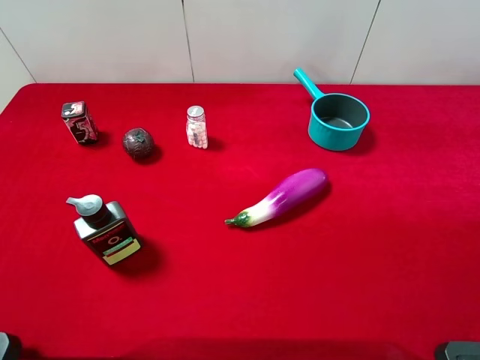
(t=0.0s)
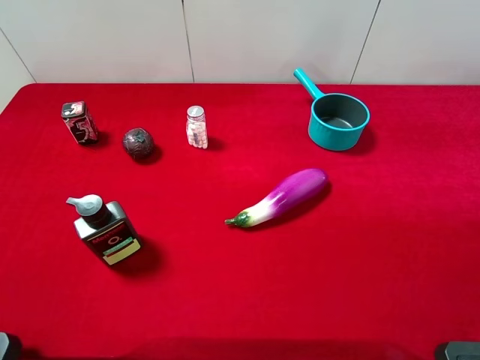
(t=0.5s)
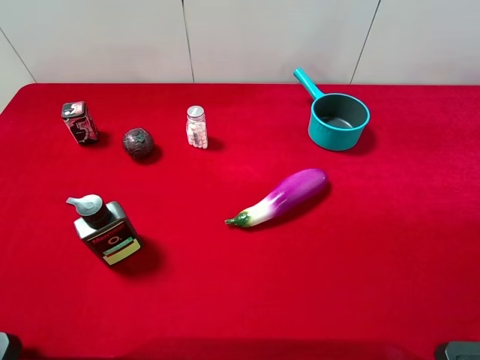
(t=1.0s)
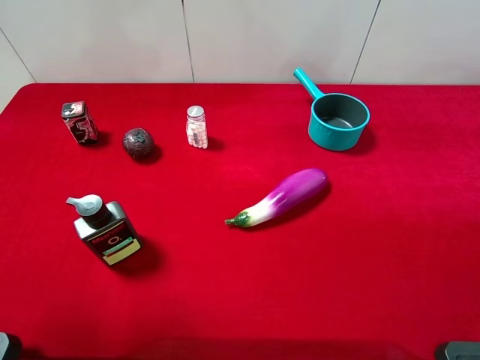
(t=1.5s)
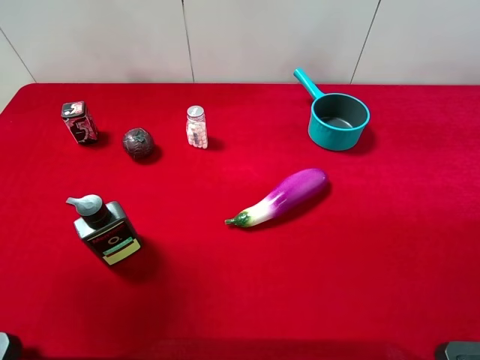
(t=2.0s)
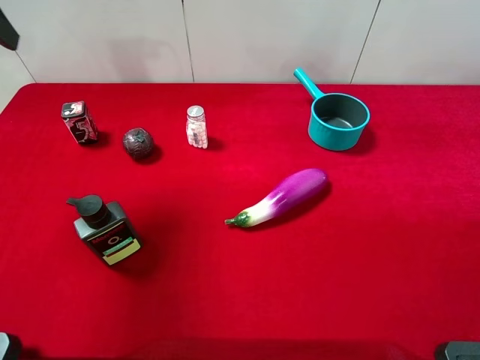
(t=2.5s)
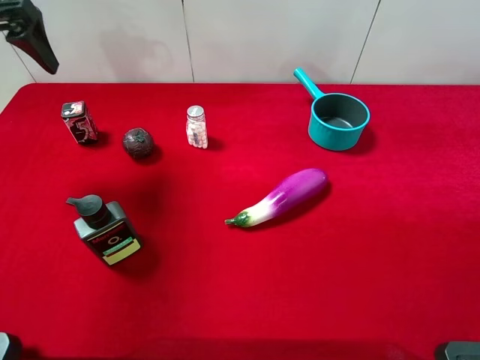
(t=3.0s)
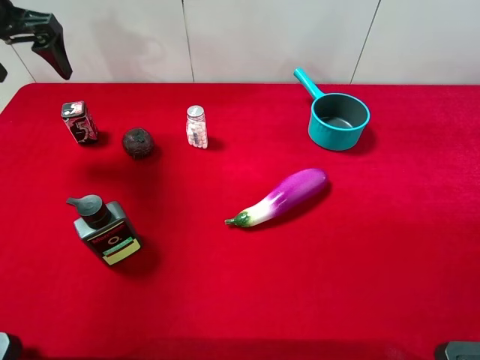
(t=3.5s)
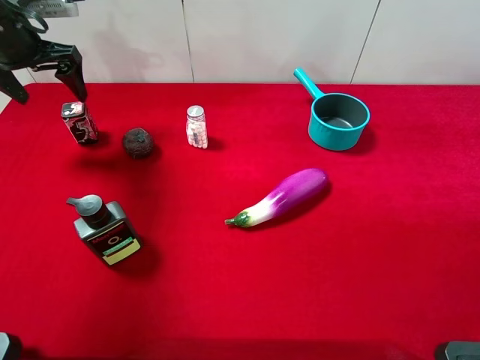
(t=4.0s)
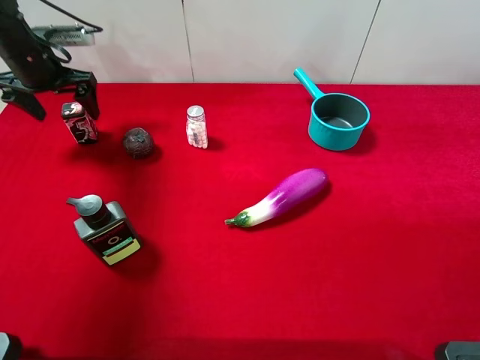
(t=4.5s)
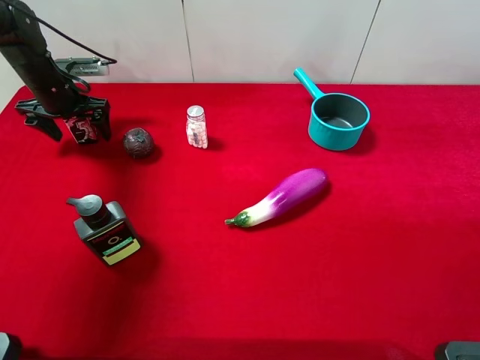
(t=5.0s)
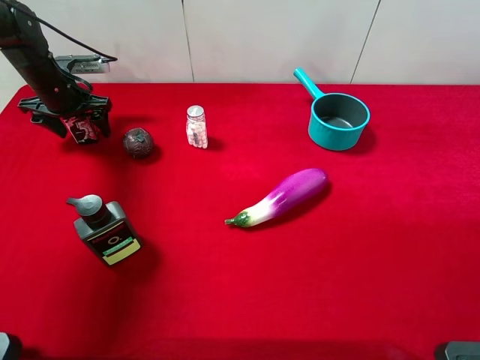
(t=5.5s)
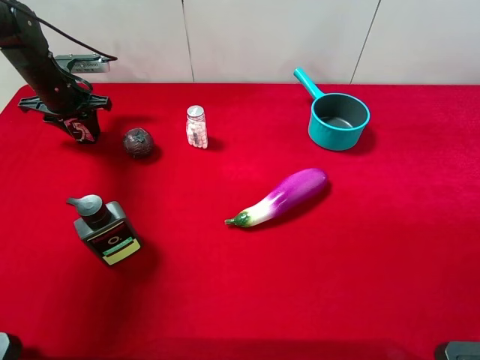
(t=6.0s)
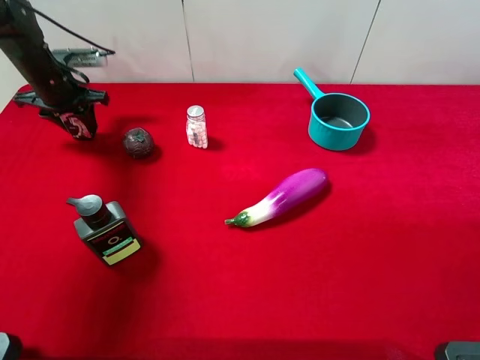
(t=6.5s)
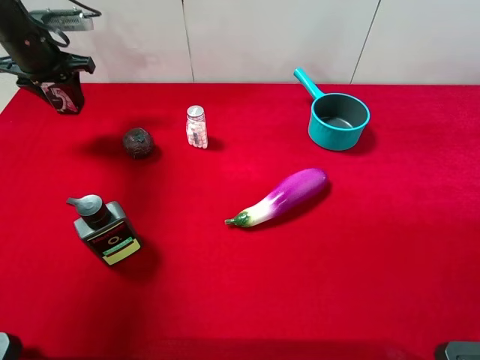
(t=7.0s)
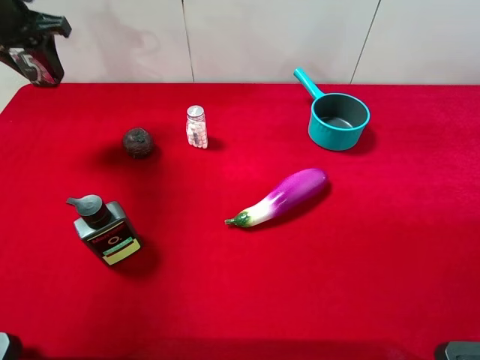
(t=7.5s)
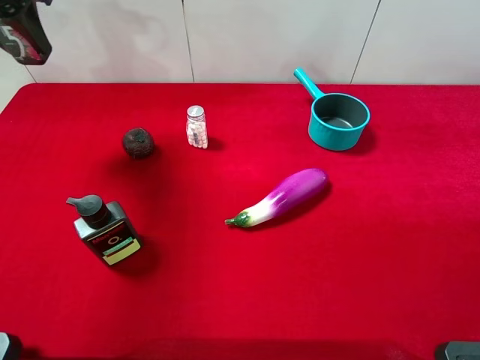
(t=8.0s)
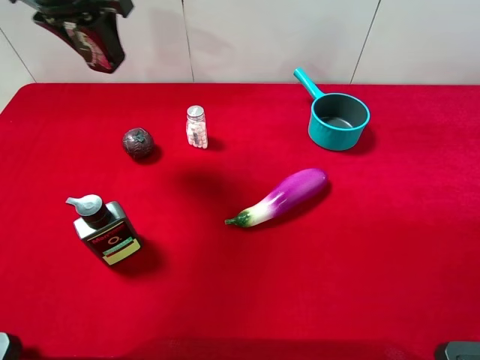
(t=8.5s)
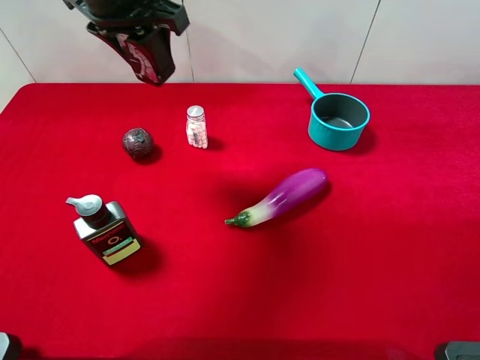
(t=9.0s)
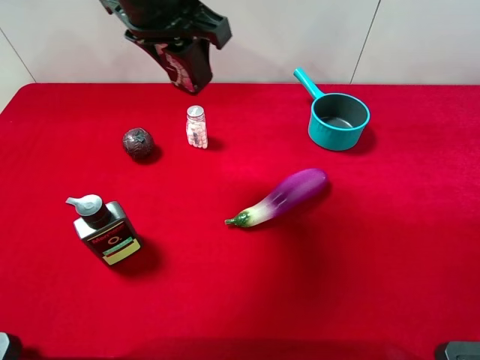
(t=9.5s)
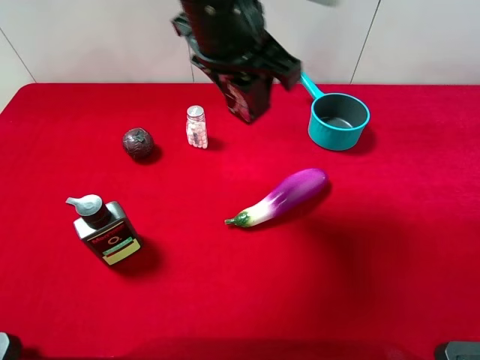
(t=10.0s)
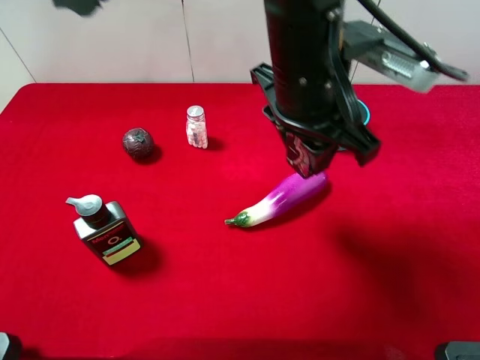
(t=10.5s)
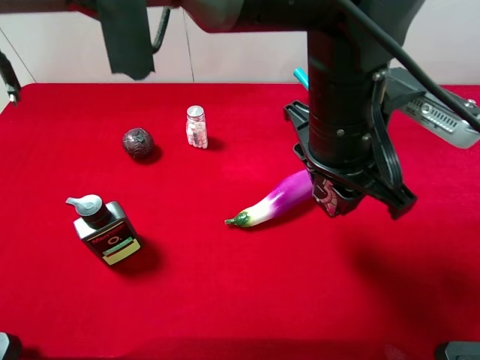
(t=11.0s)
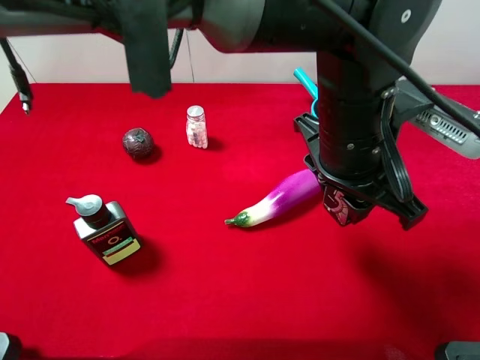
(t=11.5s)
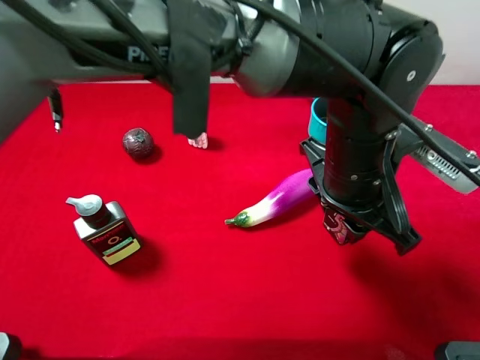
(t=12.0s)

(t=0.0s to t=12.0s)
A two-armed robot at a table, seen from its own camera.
Task of the whole recording: the gripper move the object.
Step, t=0.0s - t=5.5s: Grasp the square chewing gum with the left gripper.
t=0.0s - t=2.0s: The left gripper travels forward and upward by about 20 cm.
t=2.0s - t=4.0s: The left gripper goes approximately 25 cm forward and downward.
t=4.0s - t=6.0s: The left gripper heads downward, covering about 10 cm, and closes up.
t=6.0s - t=8.0s: The left gripper shifts some 20 cm upward.
t=8.0s - t=10.0s: The left gripper goes roughly 30 cm to the right.
t=10.0s - t=12.0s: The left gripper travels to the right, downward and backward by roughly 20 cm.

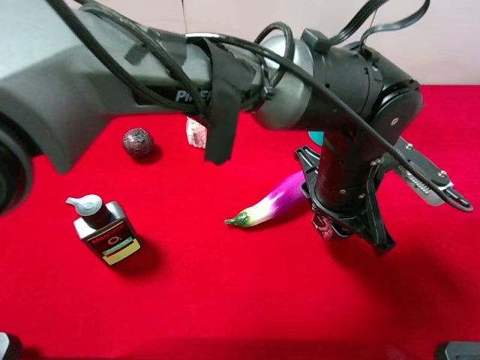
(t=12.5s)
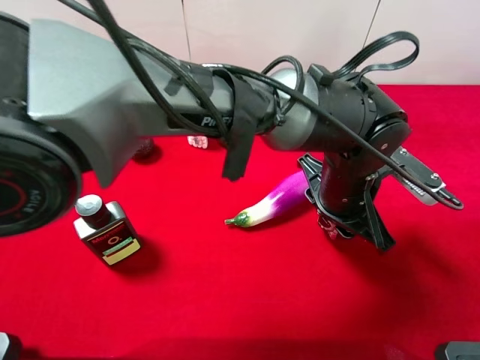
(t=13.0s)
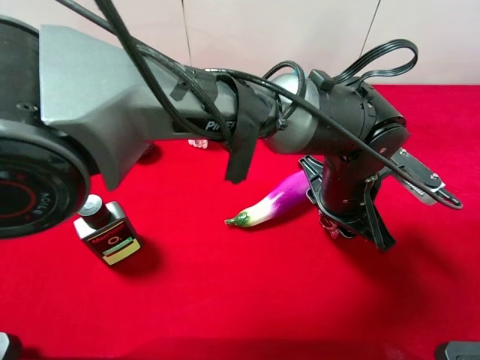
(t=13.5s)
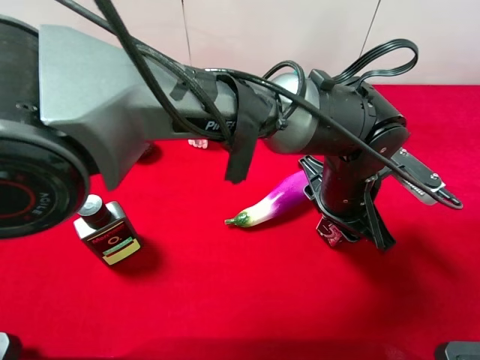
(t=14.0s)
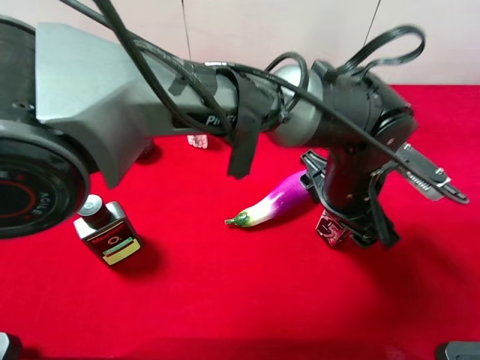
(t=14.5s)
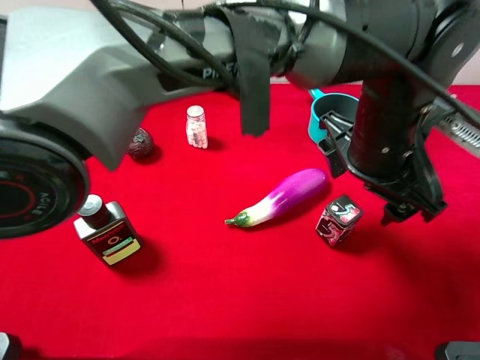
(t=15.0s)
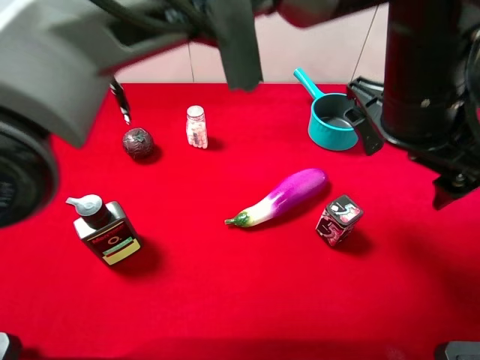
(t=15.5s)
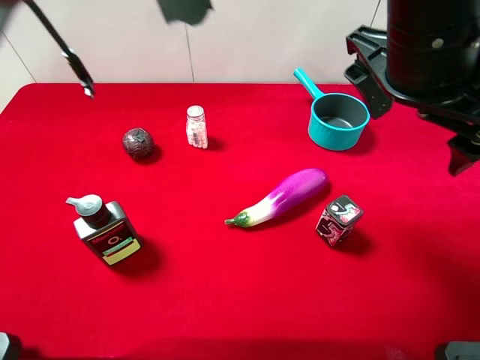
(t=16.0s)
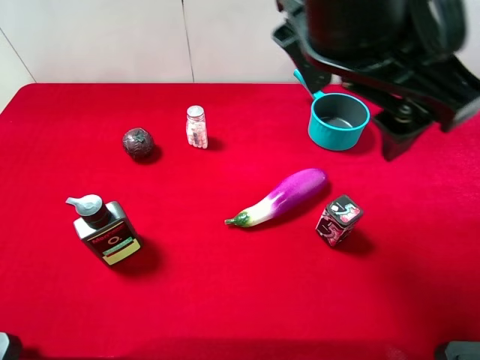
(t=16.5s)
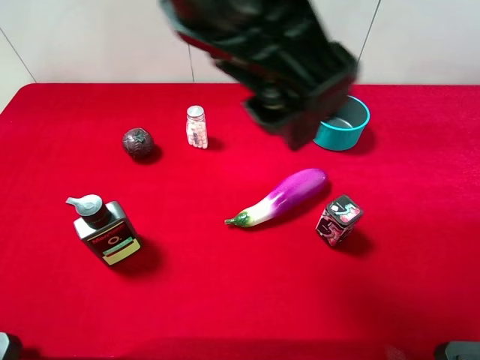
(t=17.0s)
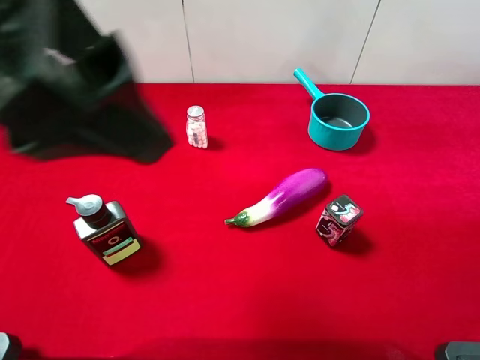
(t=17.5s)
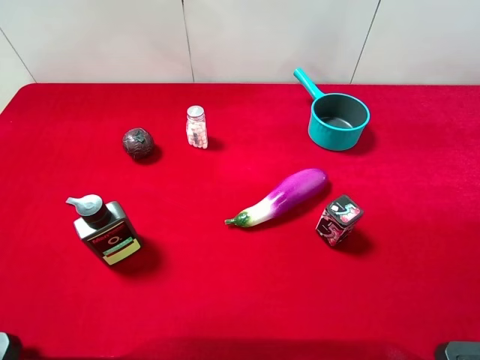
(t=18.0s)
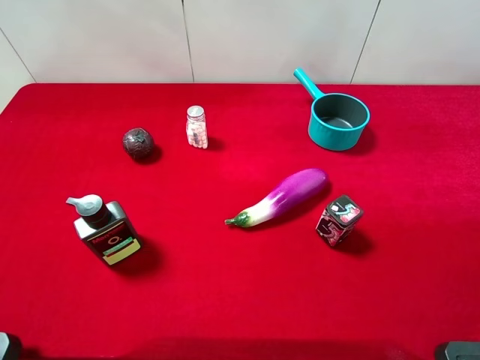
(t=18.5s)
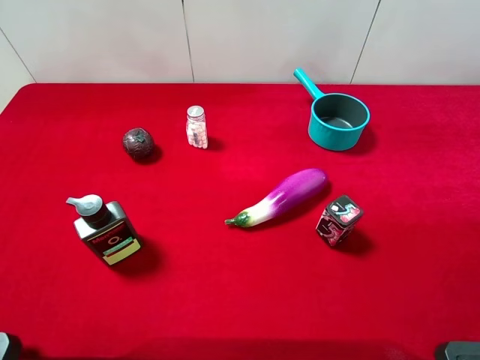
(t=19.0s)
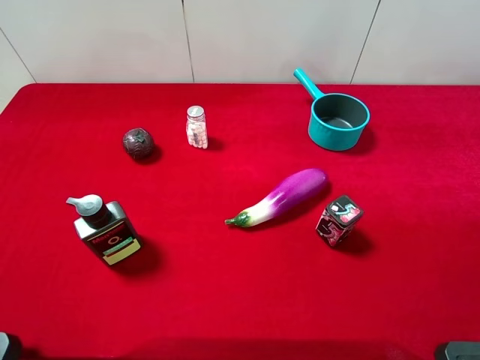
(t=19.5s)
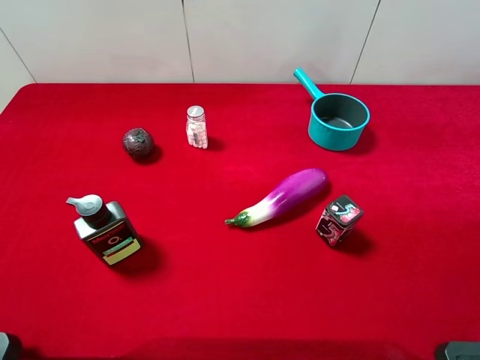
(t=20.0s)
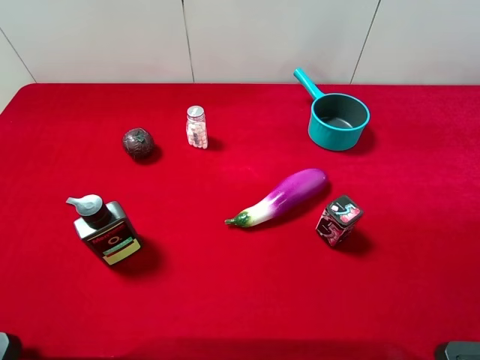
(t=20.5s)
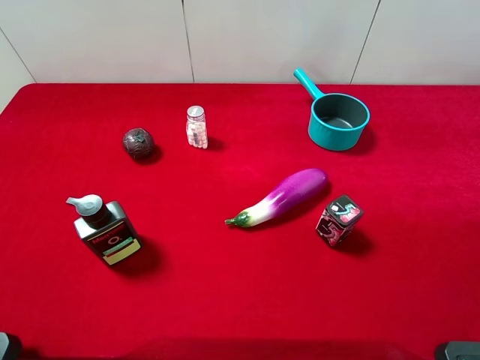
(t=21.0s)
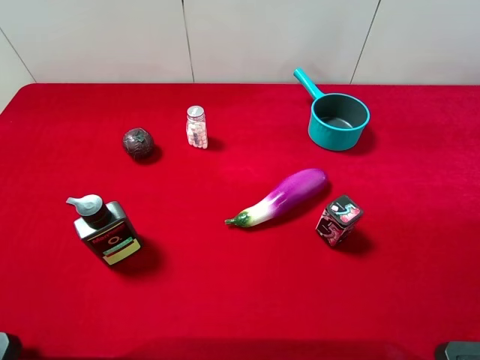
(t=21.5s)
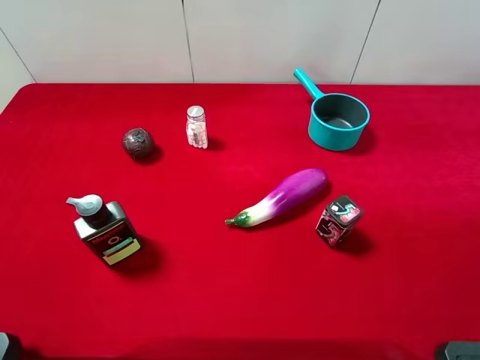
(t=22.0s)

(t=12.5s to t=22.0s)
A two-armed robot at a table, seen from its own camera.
Task of the whole recording: the gripper move the object.
Step, t=12.5s - t=15.0s: Place the square chewing gum on the table with the left gripper.
t=12.5s - t=14.5s: The left gripper opens its fingers.
t=14.5s - t=16.5s: The left gripper goes some 20 cm upward.
t=16.5s - t=18.0s: The left gripper is displaced to the left and backward by roughly 30 cm.
t=18.0s - t=20.0s: The left gripper travels downward, to the left and backward by roughly 15 cm.

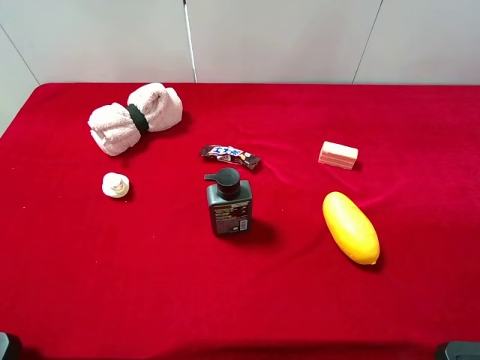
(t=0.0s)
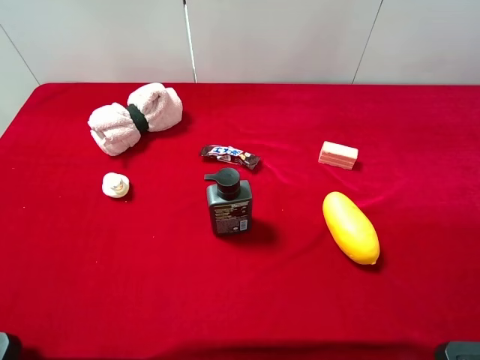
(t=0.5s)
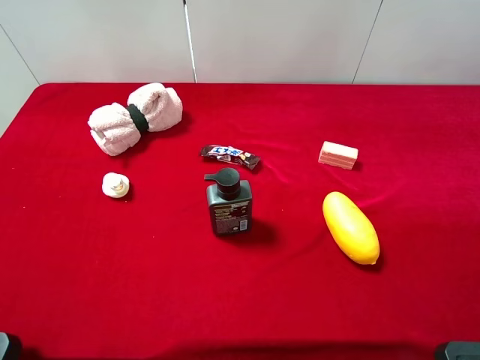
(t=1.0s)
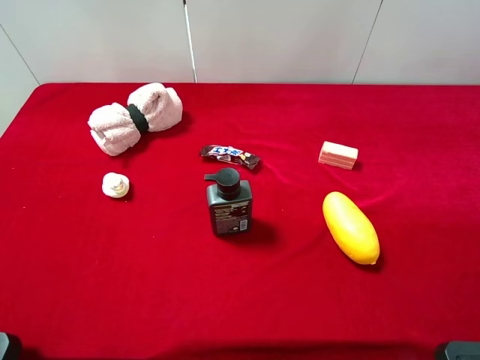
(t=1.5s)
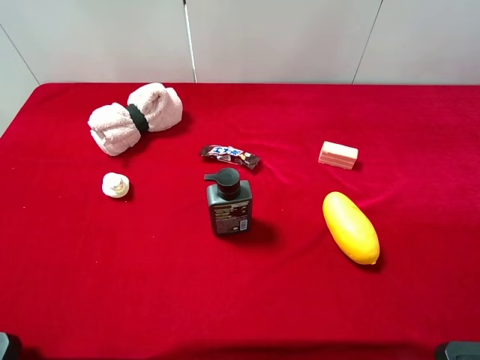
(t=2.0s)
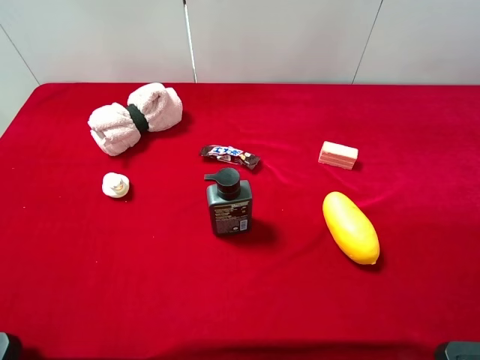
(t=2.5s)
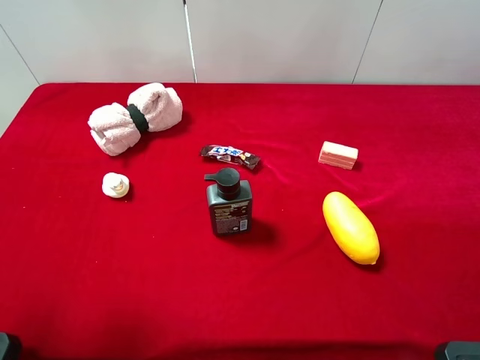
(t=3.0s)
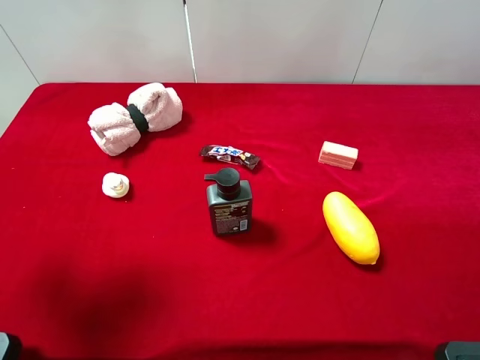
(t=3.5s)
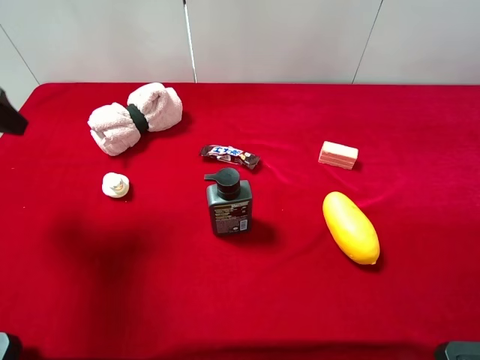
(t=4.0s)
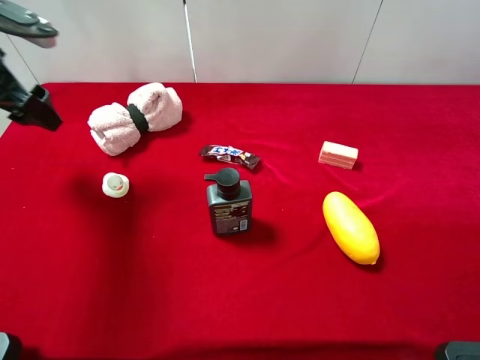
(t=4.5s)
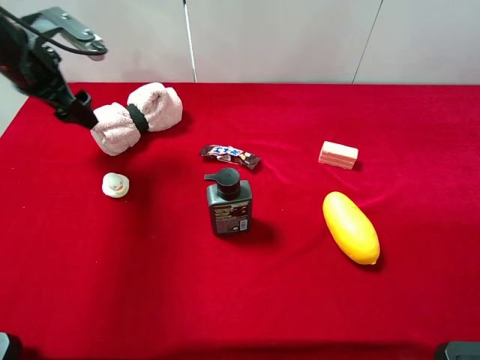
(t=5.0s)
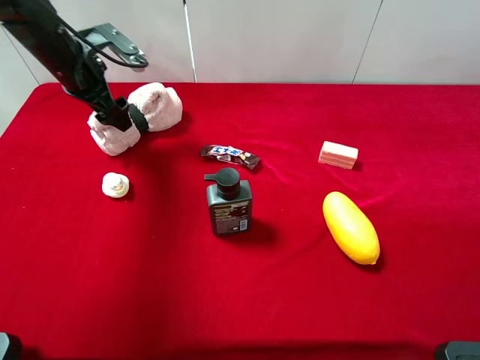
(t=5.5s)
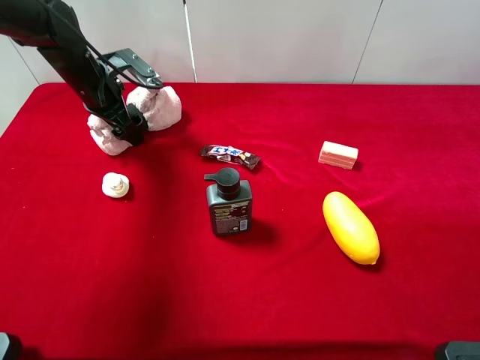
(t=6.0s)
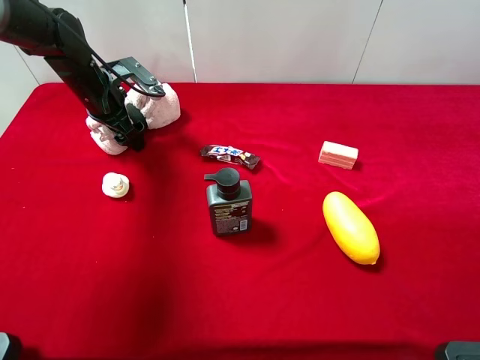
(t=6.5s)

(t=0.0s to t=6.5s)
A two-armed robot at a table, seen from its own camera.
Task of the whole recording: the gripper move the object.
t=0.0s - t=2.0s: Neither gripper changes place.
t=2.0s - t=4.5s: The left gripper heads forward, covering about 30 cm.
t=4.5s - t=6.5s: The left gripper is displaced downward, forward and to the right by roughly 20 cm.
